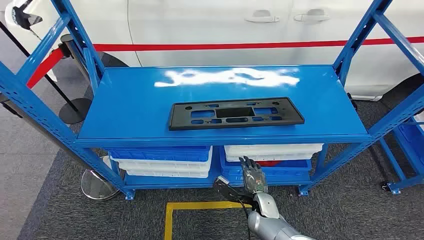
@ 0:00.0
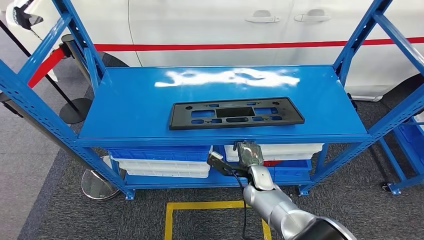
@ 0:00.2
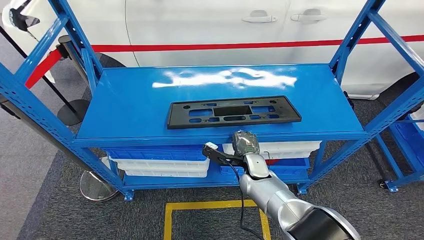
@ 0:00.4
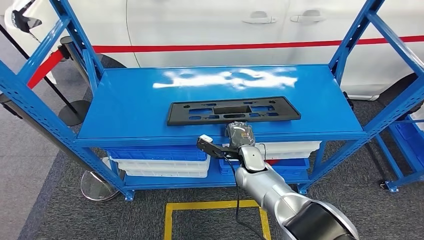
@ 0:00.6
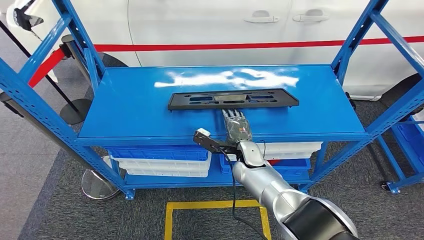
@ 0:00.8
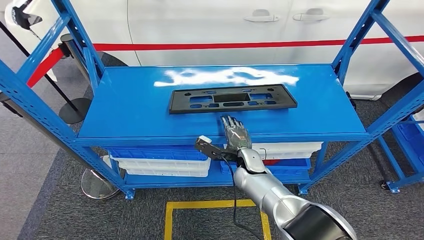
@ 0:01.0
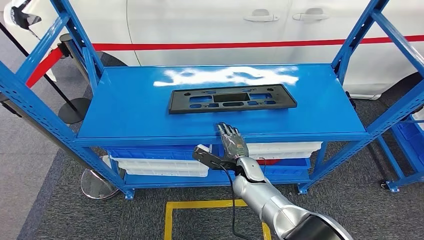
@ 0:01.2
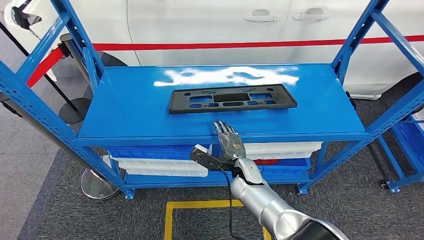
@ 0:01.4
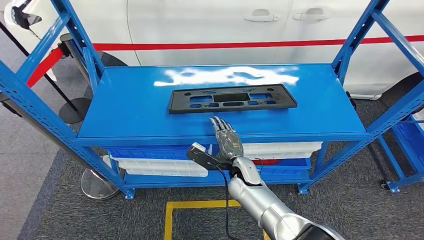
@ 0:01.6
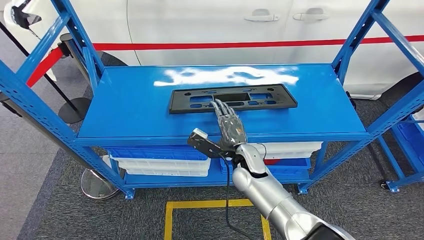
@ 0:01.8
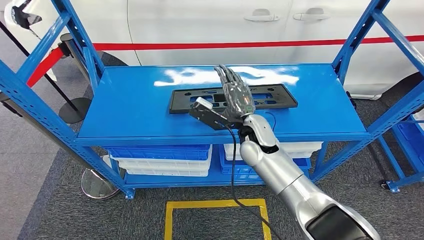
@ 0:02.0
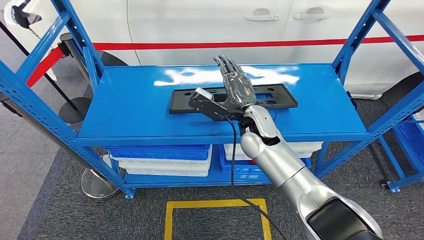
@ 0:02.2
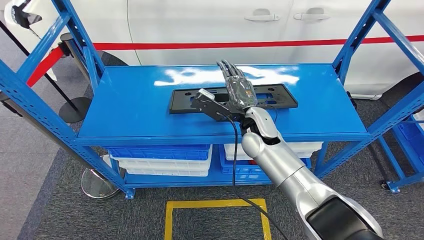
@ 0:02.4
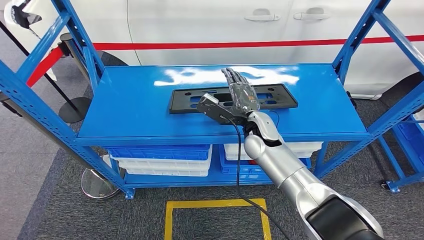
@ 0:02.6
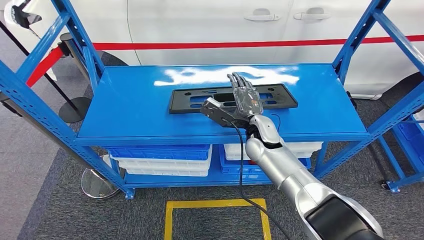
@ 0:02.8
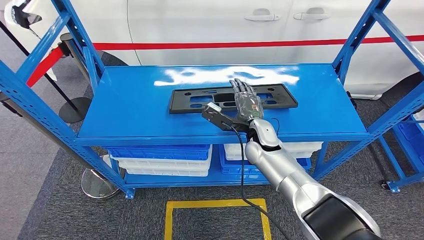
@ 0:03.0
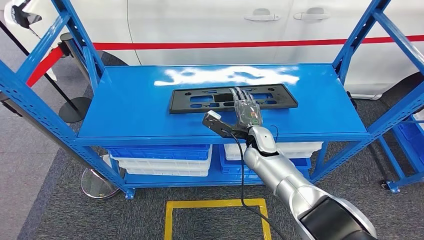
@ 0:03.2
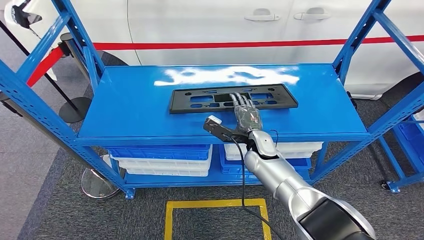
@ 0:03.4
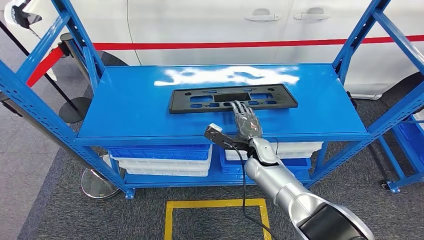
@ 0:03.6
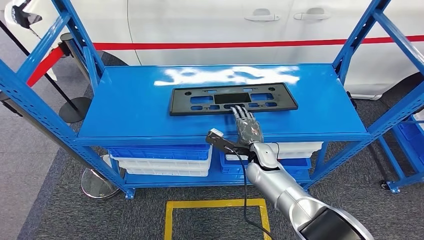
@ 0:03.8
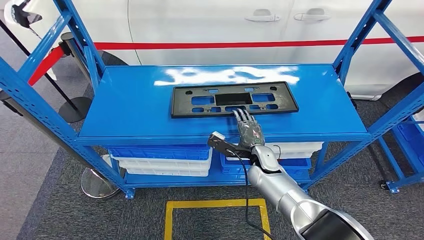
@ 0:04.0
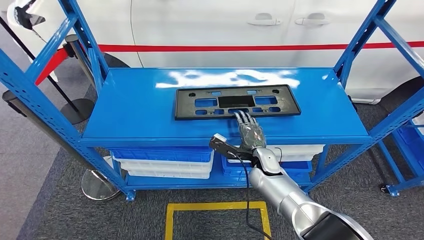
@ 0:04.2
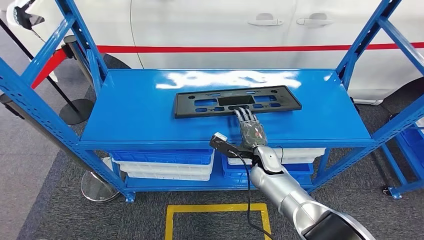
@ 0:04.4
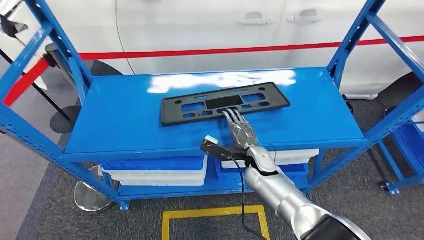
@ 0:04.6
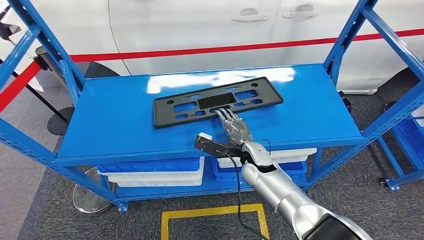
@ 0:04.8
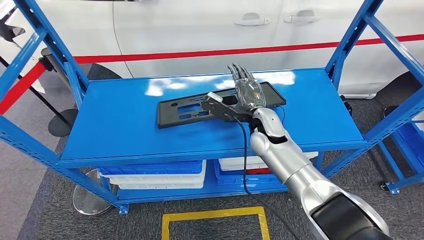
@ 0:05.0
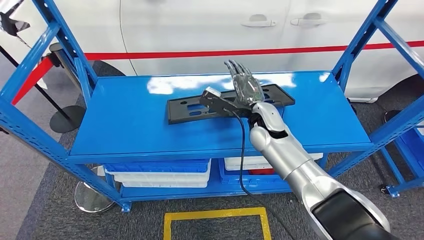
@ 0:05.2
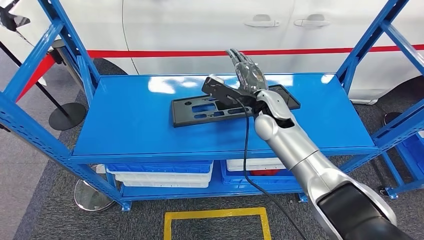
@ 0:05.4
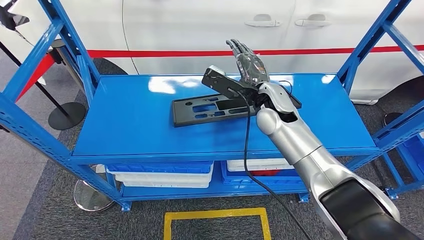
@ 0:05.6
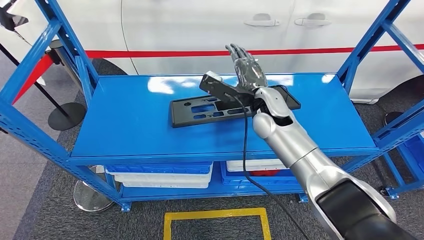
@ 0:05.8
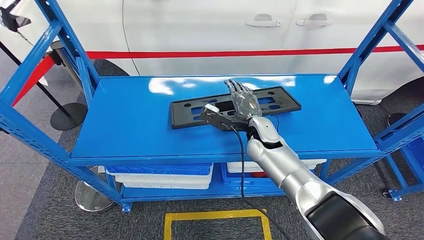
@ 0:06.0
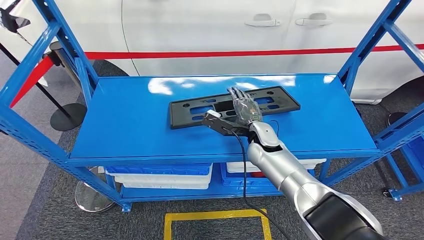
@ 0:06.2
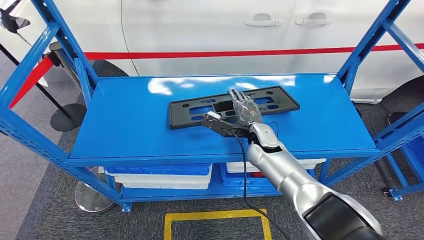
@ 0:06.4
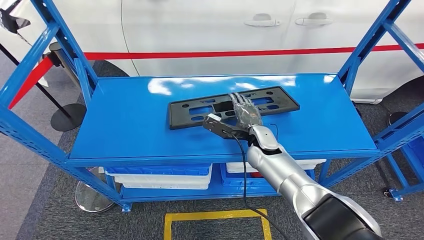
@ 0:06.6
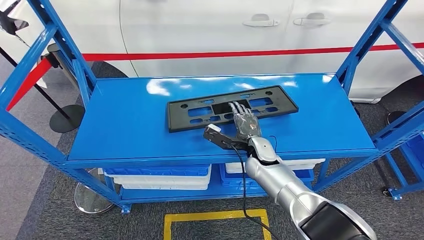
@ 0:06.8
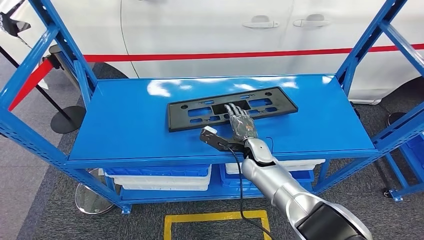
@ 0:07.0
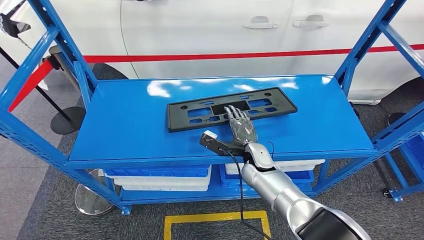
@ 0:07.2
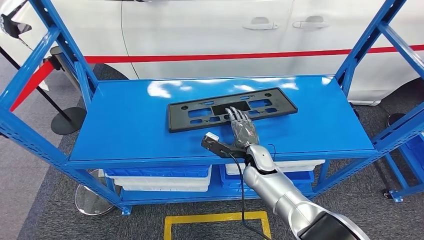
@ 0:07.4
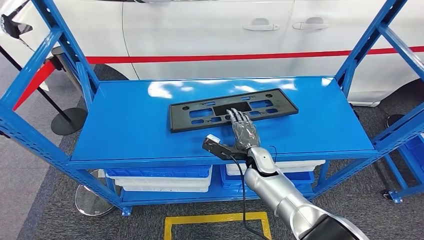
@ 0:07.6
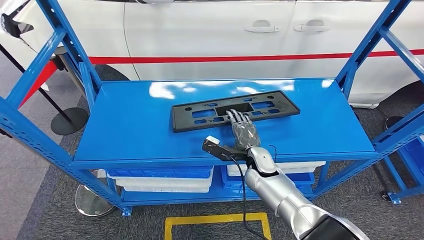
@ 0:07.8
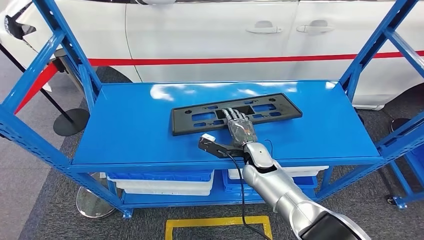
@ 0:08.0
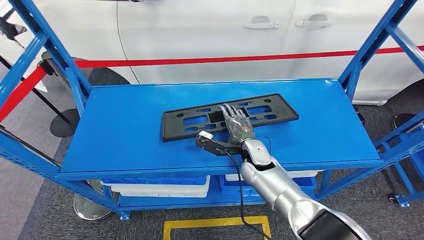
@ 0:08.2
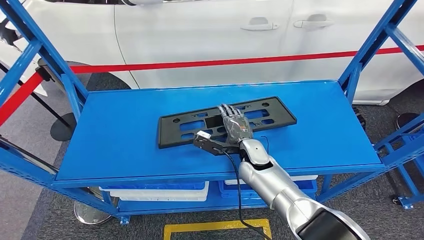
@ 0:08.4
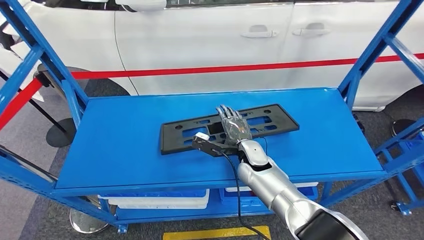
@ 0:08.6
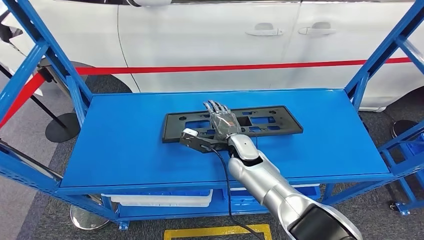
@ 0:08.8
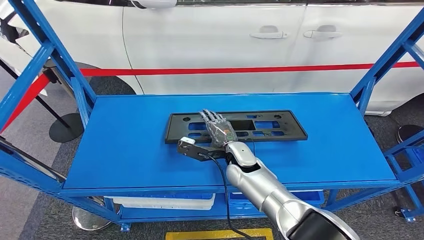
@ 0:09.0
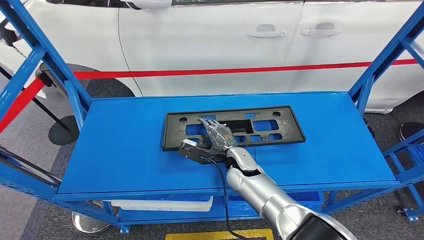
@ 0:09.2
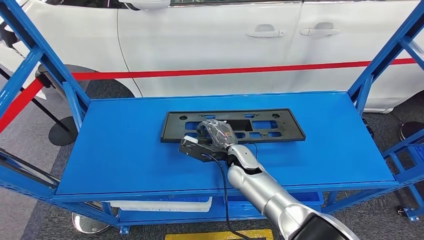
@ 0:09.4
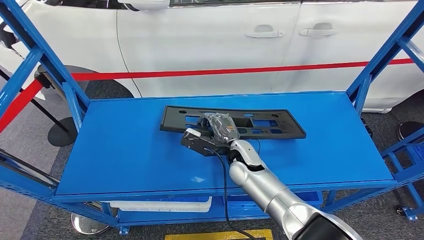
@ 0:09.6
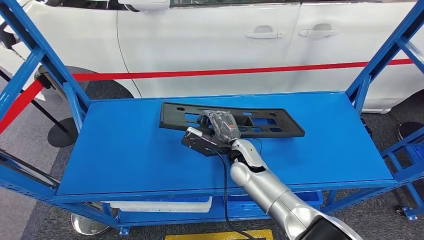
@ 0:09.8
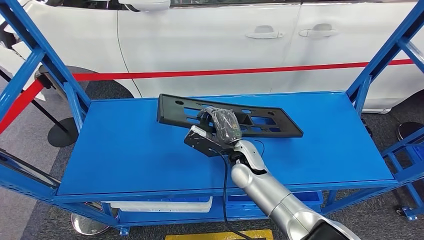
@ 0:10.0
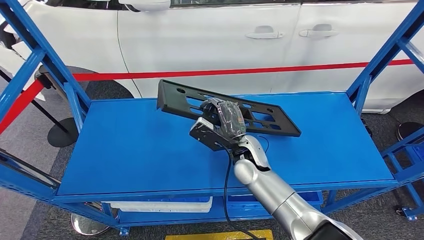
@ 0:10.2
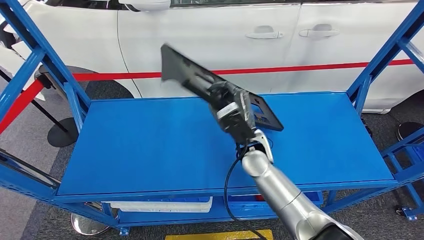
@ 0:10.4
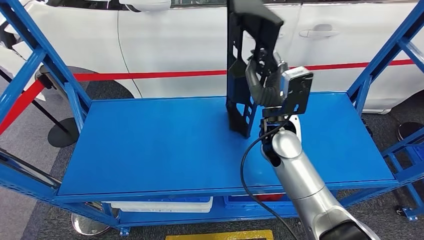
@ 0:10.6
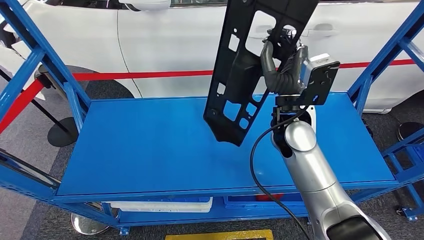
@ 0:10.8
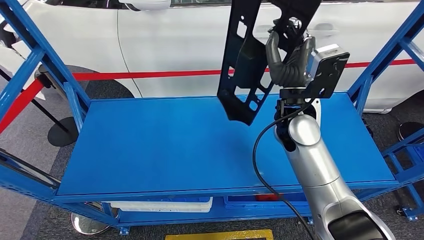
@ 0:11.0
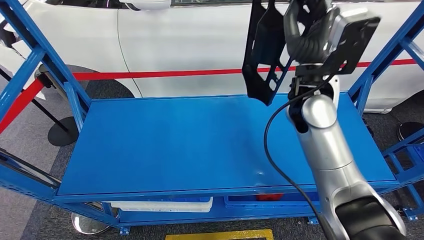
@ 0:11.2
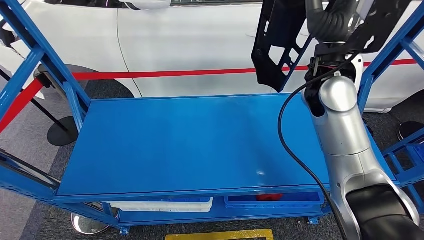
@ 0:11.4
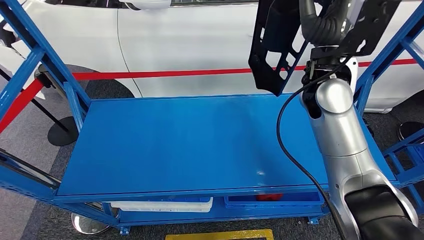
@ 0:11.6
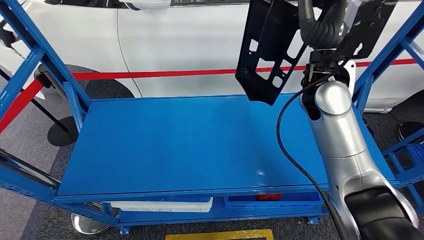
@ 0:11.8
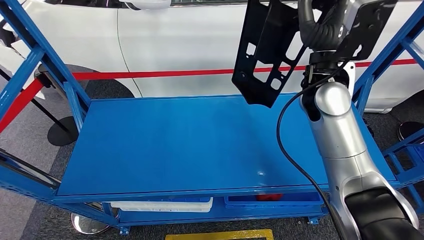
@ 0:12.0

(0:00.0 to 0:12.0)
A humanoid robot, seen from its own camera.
Step, 0:00.0 - 0:11.8: Pick up the large material from the shelf.
0:01.6 - 0:03.0: The right hand is displaced upward and forward by roughly 10 cm.

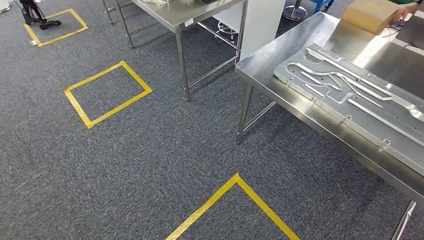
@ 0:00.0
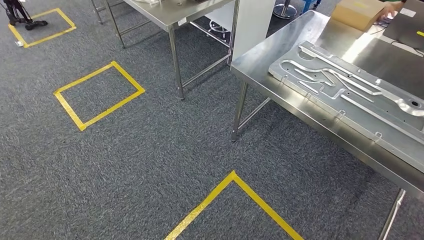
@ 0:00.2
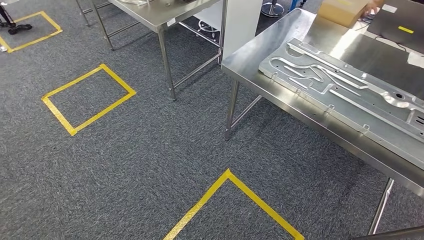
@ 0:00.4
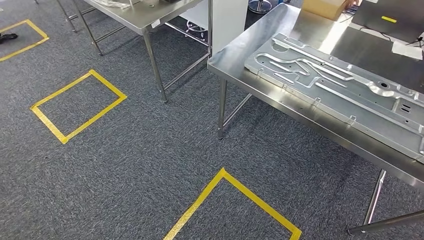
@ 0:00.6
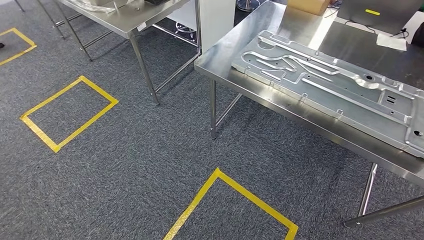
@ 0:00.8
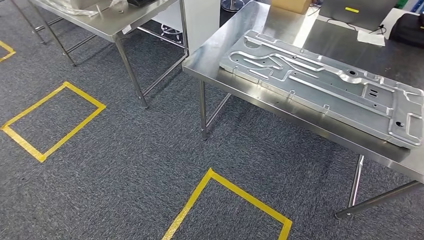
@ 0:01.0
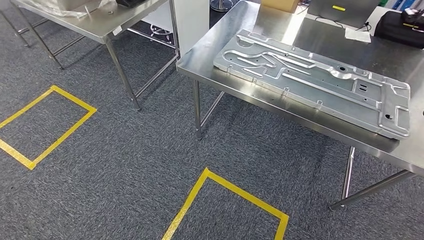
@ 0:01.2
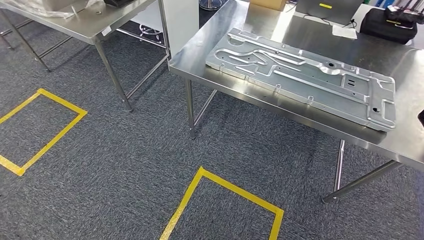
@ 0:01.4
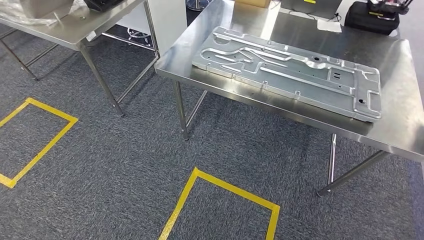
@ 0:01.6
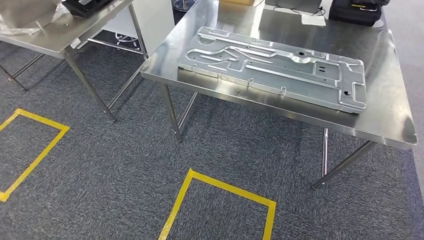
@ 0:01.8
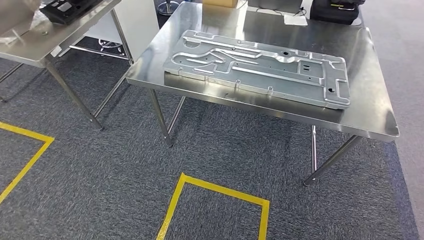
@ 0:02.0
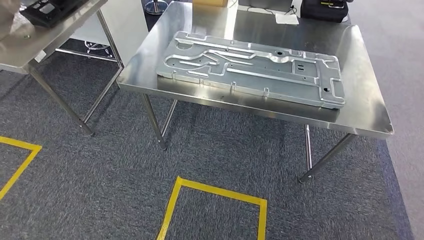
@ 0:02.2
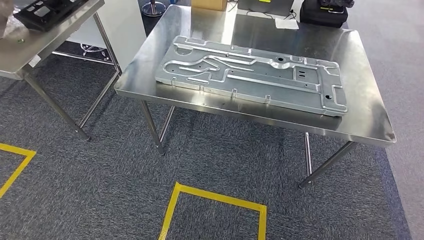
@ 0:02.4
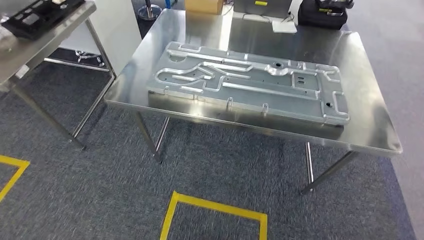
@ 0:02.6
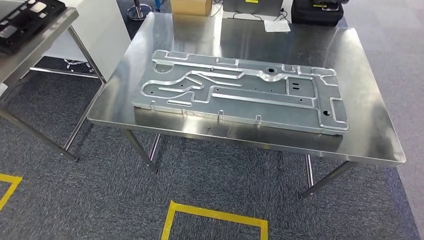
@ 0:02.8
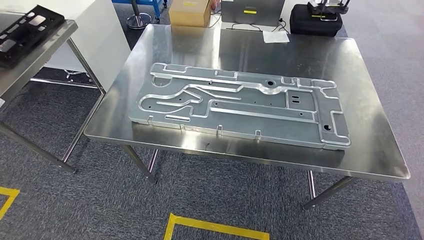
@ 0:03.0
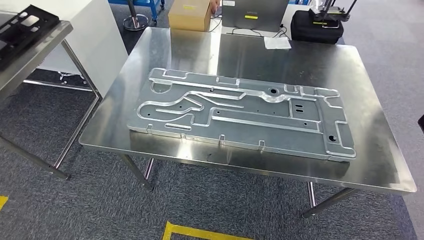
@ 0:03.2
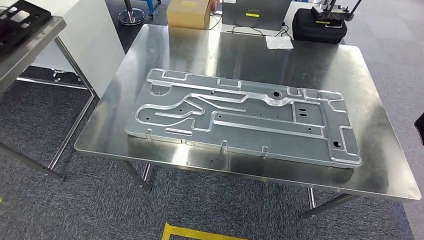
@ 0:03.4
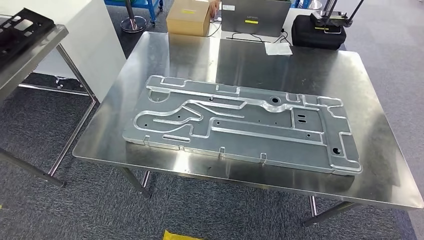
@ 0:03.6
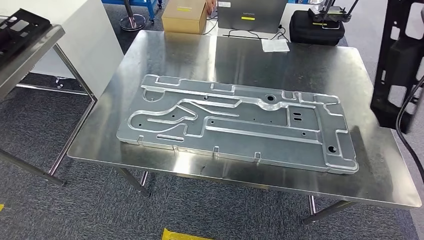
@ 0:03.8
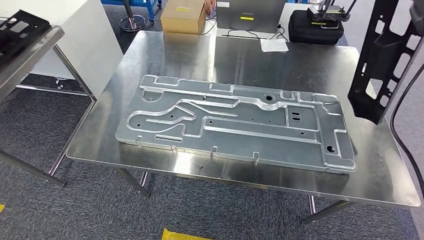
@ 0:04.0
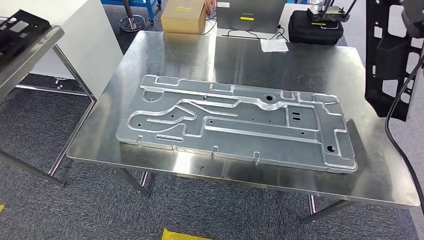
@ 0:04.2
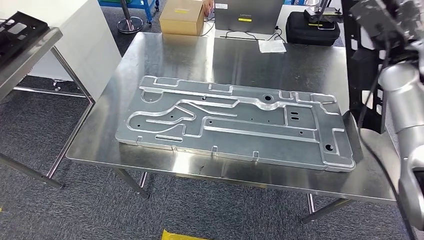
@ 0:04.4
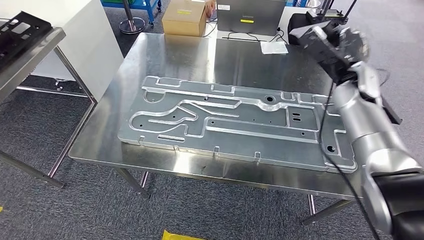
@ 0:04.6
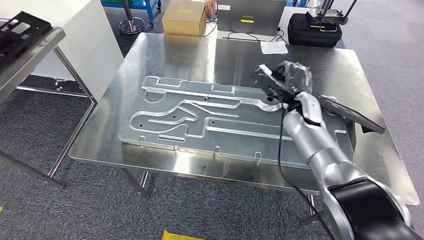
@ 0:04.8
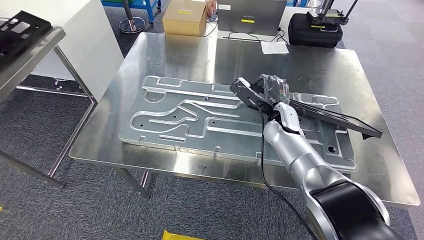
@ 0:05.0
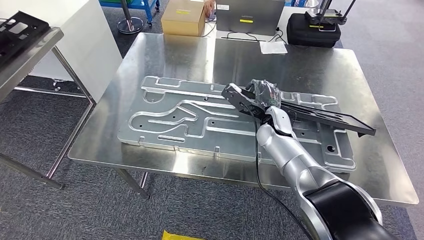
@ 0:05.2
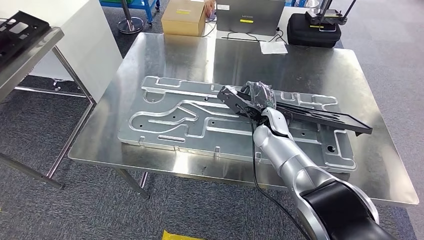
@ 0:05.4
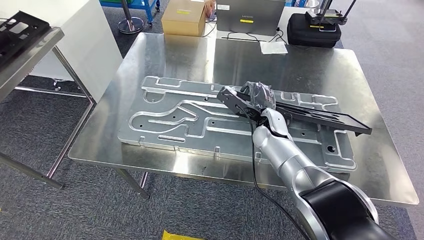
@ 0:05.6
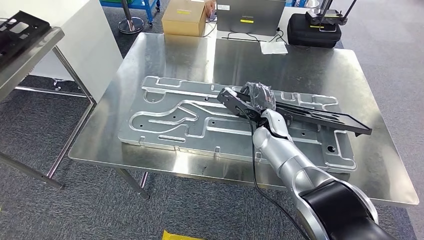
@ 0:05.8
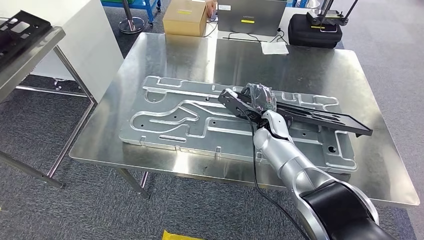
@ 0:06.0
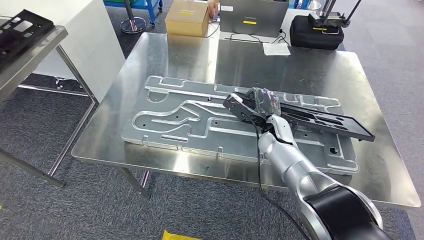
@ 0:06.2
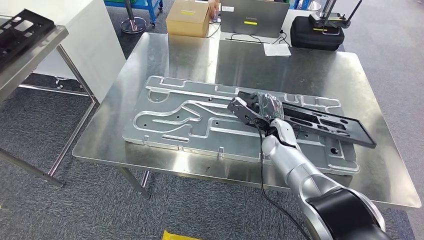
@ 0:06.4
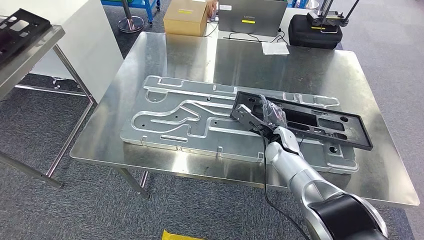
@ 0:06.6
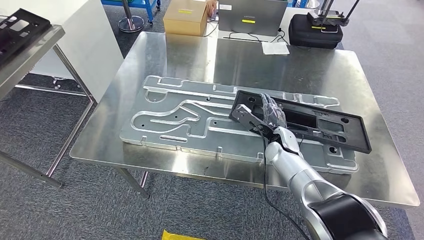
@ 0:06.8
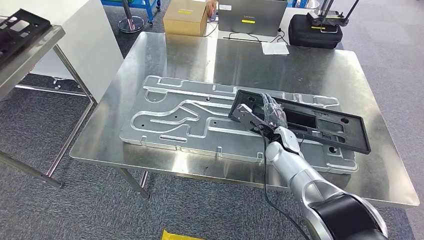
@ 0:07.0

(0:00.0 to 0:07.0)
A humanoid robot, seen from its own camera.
Step, 0:00.0 - 0:02.4: Move the large material to the workbench.
0:05.6 - 0:07.0: The right hand moves downward, about 5 cm.
